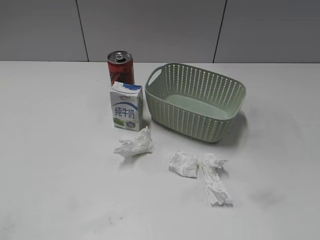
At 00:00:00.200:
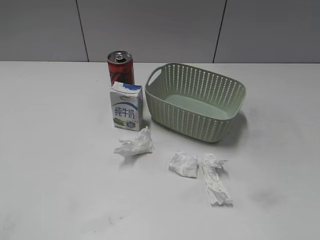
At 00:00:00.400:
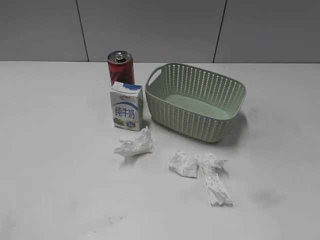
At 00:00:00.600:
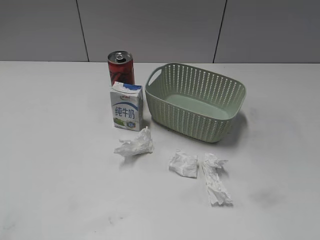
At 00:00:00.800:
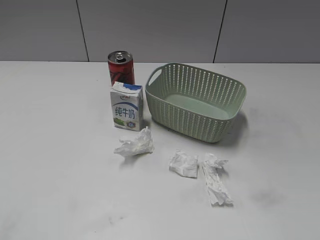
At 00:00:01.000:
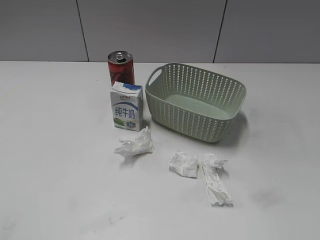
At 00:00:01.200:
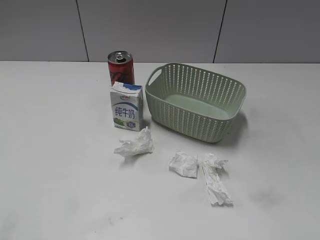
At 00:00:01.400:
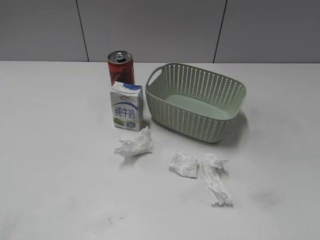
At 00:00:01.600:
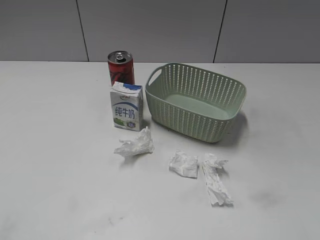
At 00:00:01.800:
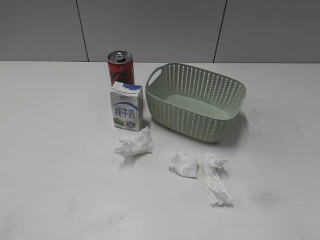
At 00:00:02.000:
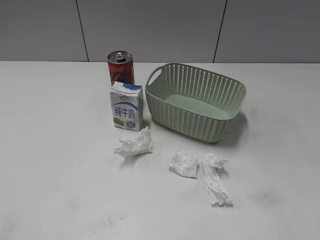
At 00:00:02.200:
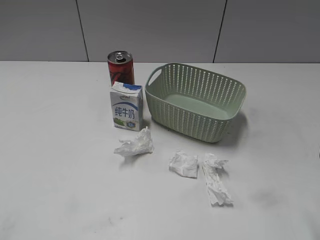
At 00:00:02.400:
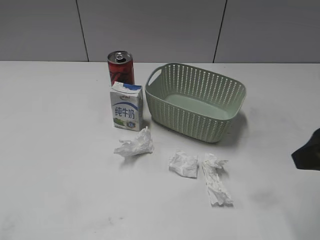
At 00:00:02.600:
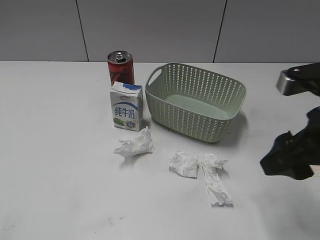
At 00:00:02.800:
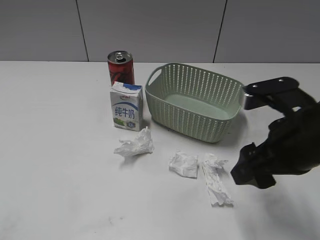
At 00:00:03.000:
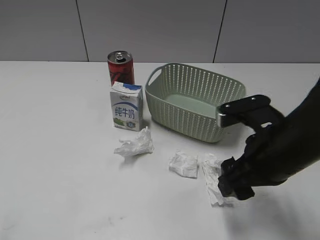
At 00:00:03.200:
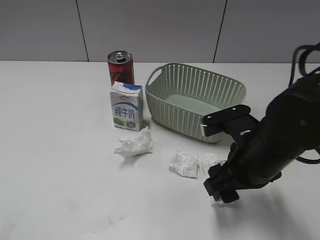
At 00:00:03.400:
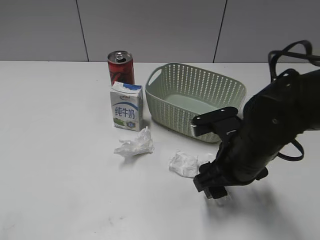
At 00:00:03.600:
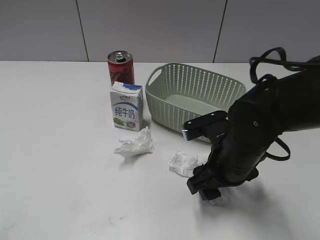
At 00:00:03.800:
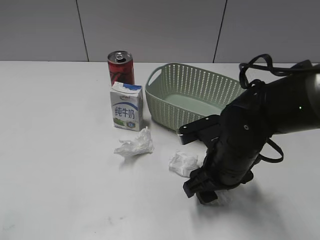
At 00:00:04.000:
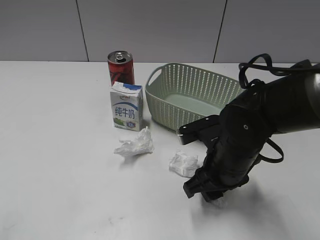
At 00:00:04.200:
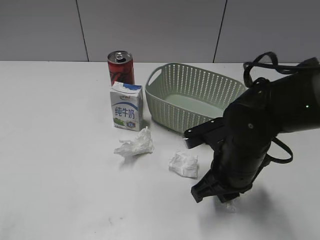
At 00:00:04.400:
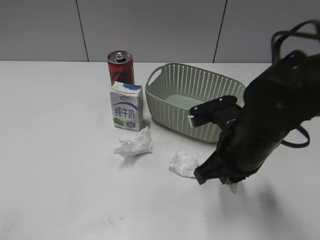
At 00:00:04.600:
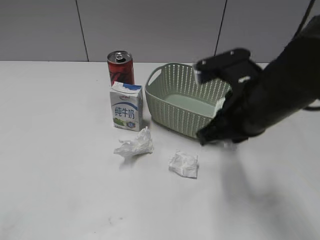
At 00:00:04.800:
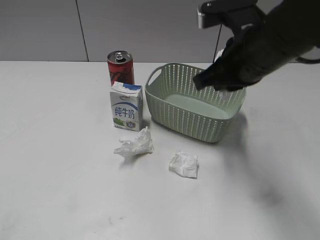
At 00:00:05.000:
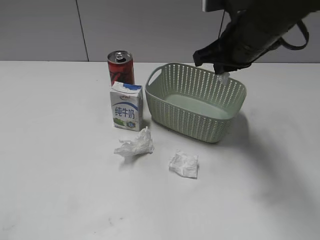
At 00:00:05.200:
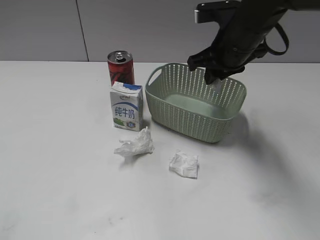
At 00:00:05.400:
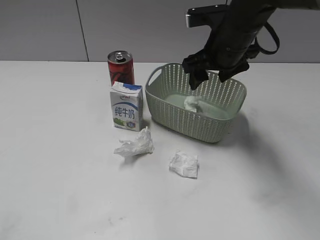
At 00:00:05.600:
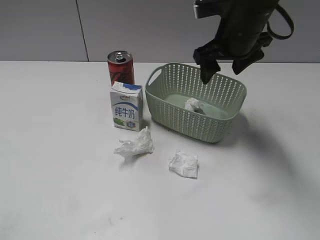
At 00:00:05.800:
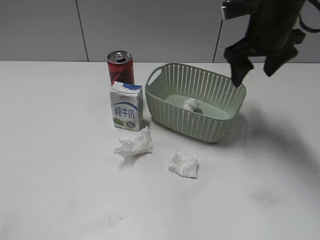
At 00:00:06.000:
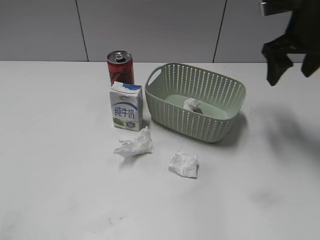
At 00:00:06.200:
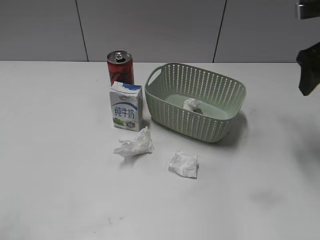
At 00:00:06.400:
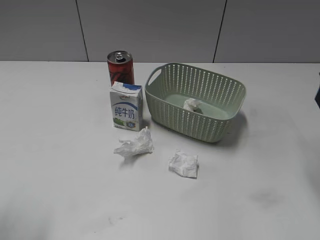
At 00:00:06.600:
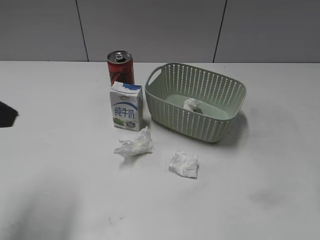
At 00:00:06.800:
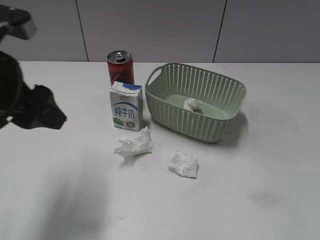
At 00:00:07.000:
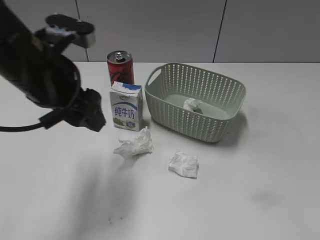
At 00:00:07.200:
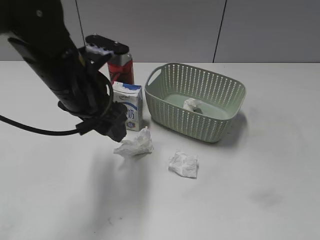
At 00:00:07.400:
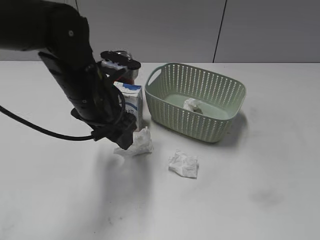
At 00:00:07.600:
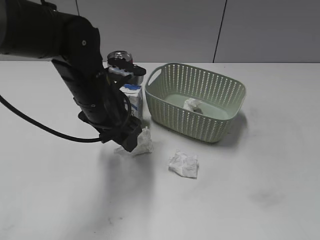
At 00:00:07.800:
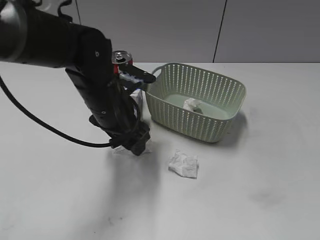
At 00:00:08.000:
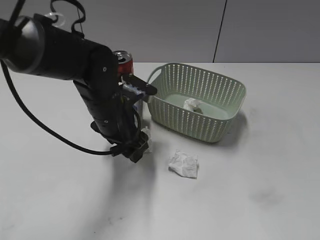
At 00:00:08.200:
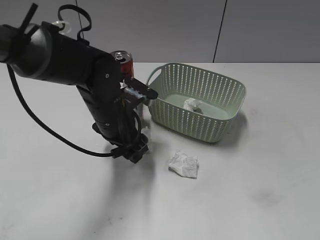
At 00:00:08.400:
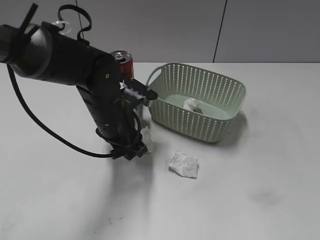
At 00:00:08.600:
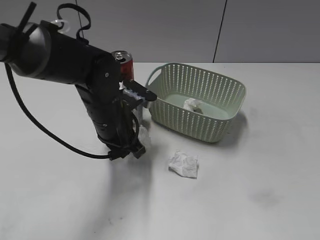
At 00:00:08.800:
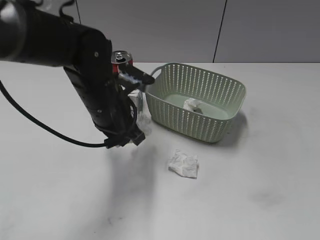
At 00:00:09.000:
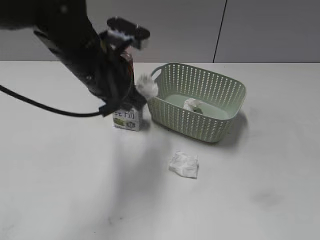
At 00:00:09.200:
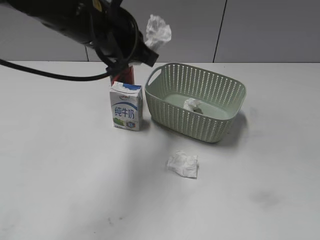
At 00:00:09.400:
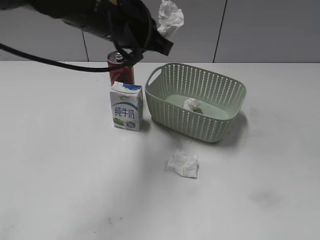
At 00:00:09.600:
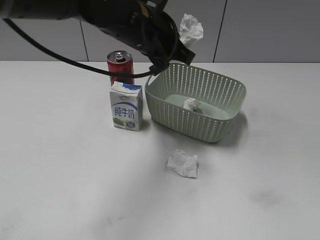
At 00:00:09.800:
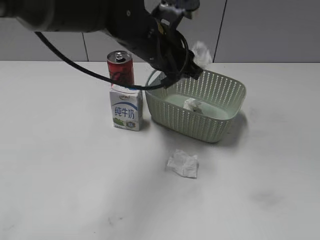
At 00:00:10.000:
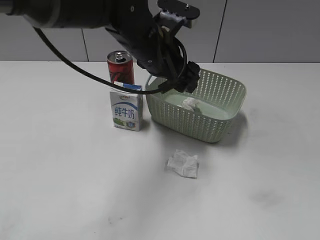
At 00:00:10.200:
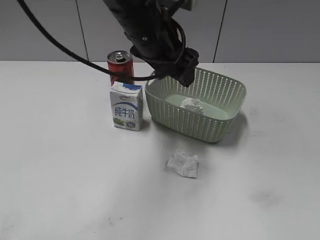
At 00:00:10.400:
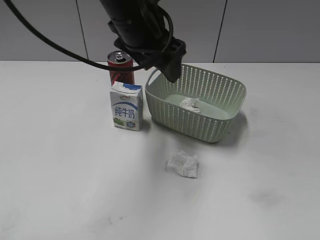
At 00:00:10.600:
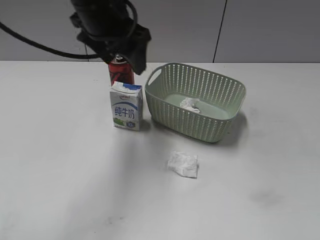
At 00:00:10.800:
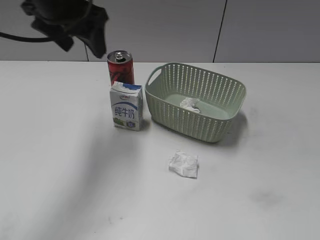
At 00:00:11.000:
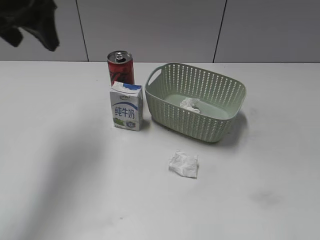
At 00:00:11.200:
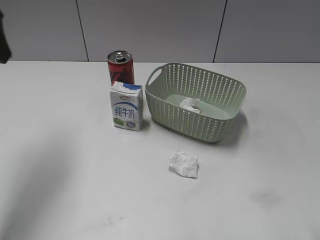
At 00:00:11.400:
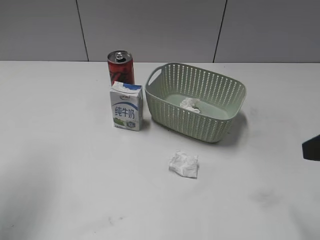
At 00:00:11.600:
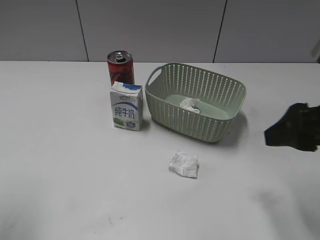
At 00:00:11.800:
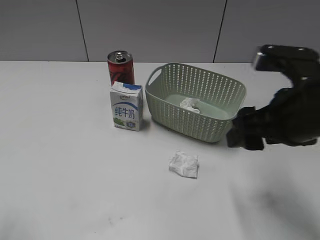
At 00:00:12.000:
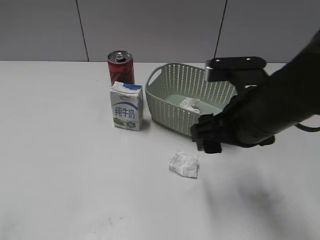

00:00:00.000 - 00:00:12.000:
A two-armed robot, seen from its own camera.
Step, 00:00:02.200 - 00:00:04.200: Grasp the waste paper with right gripper.
Step, 00:00:04.400 - 00:00:05.400: Place the waste paper in the basket with right gripper.
Step, 00:00:05.600 - 00:00:08.600: Grasp the waste paper with left gripper.
Step, 00:00:08.800 - 00:00:10.200: Place the waste paper in the basket with left gripper.
00:00:01.600 - 00:00:03.000: The right gripper moves to the left, forward and downward, roughly 20 cm.
00:00:03.000 - 00:00:04.400: The right gripper closes its fingers.
00:00:04.400 - 00:00:06.000: The left gripper ends up approximately 5 cm from where it was. The right gripper moves forward, to the right and upward, some 20 cm, and opens its fingers.
00:00:06.000 - 00:00:07.600: The right gripper is displaced backward by about 35 cm. Meanwhile the left gripper goes roughly 35 cm forward, to the right and downward.
00:00:07.600 - 00:00:09.000: The left gripper is displaced upward by about 10 cm, and closes.
00:00:09.000 - 00:00:10.400: The left gripper moves about 5 cm, and opens its fingers.
00:00:10.400 - 00:00:12.000: The left gripper is displaced backward and to the left by approximately 40 cm. Meanwhile the right gripper moves forward and to the left, approximately 30 cm.

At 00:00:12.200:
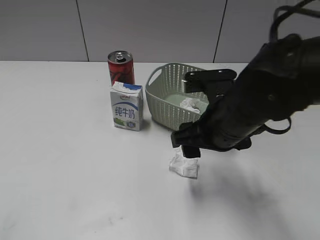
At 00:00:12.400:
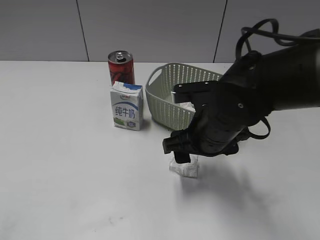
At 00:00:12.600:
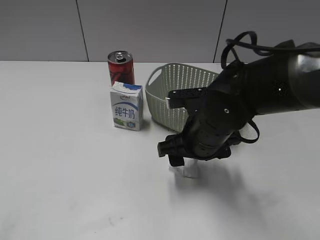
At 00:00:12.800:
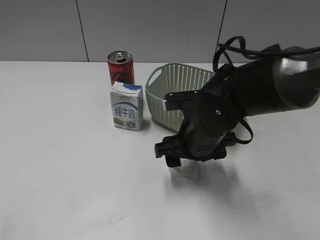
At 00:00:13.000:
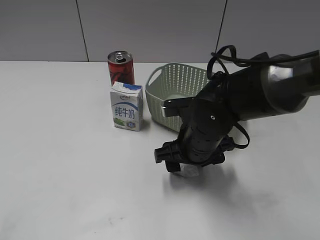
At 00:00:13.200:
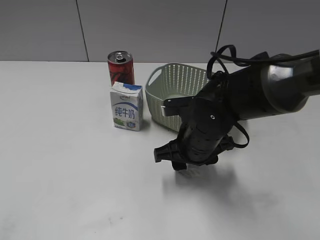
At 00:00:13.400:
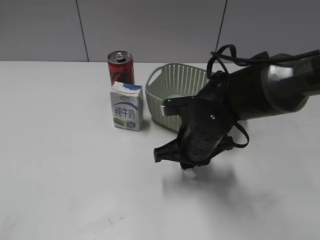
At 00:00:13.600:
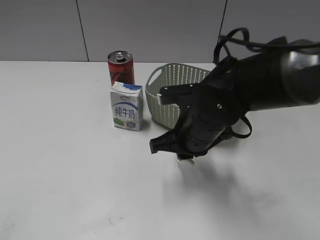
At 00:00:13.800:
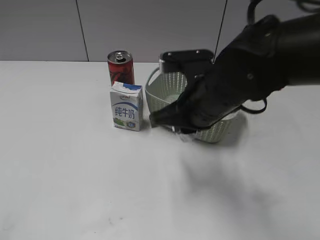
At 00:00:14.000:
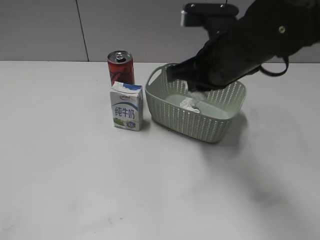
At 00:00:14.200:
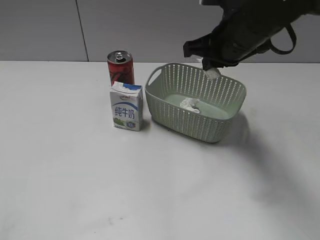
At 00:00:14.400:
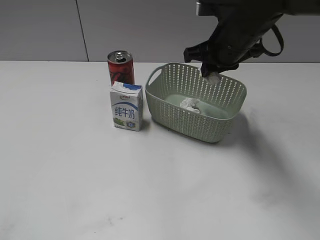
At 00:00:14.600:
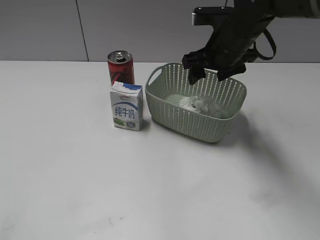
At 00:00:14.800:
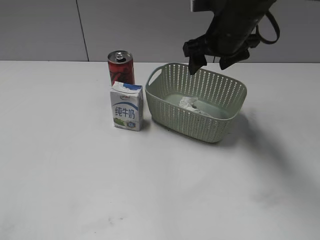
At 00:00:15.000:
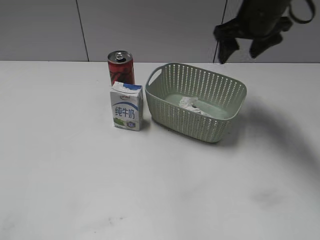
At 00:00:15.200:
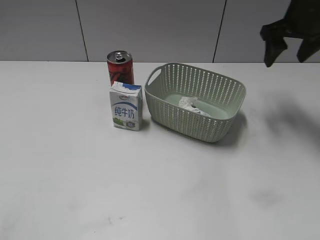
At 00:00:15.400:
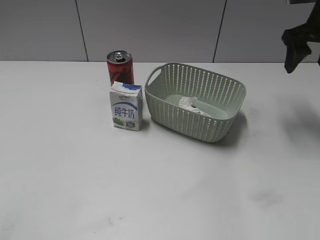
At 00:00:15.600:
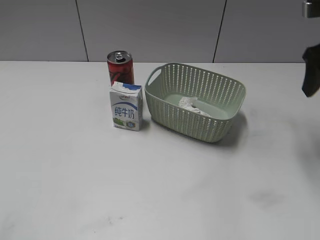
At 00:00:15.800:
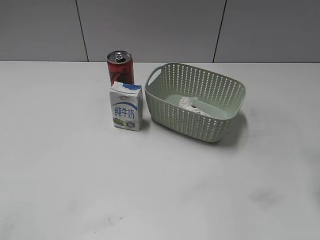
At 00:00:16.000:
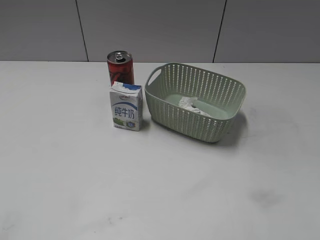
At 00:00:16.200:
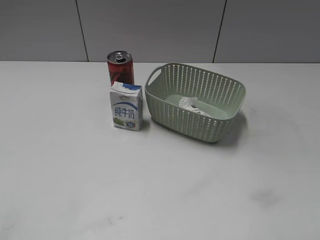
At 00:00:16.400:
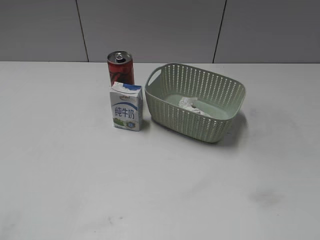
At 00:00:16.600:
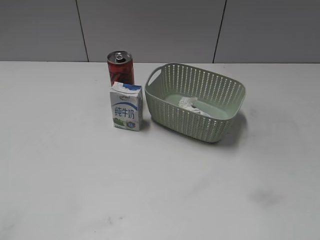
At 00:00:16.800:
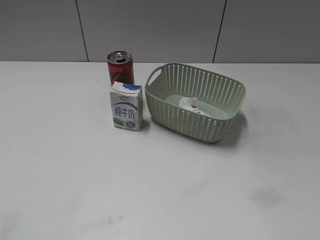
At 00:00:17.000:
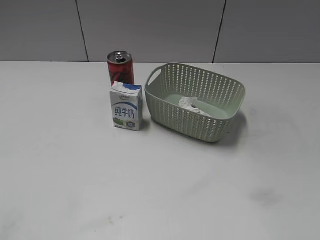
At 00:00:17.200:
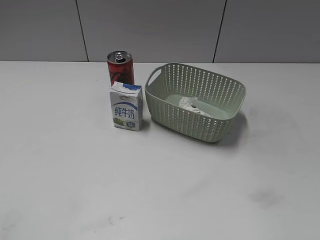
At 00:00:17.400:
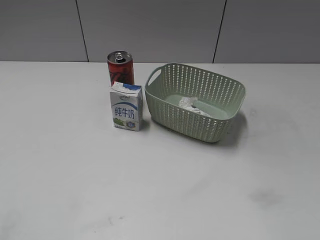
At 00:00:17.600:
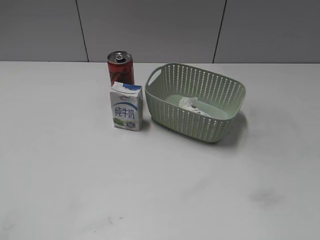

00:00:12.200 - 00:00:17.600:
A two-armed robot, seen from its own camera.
00:00:12.200 - 00:00:13.600: The right gripper closes.
00:00:13.600 - 00:00:15.000: The right gripper moves forward, to the right and upward, roughly 25 cm, and opens.
00:00:15.000 - 00:00:16.200: The right gripper shifts about 30 cm backward.
